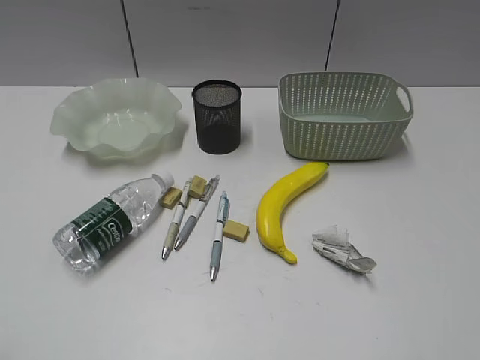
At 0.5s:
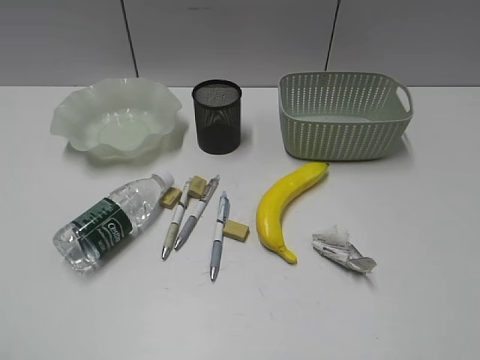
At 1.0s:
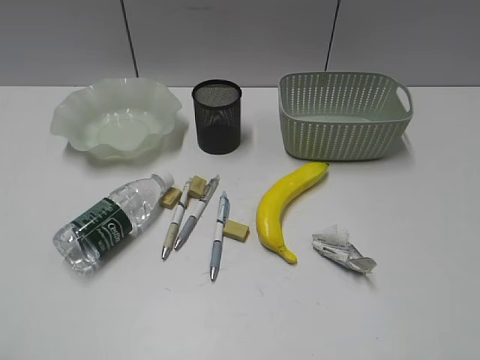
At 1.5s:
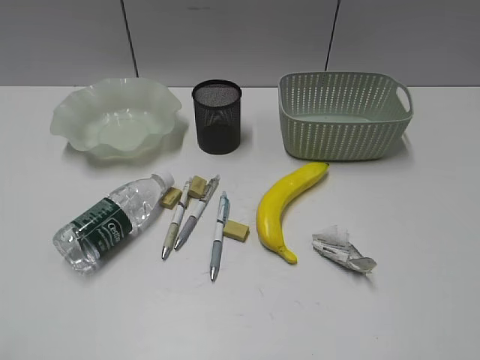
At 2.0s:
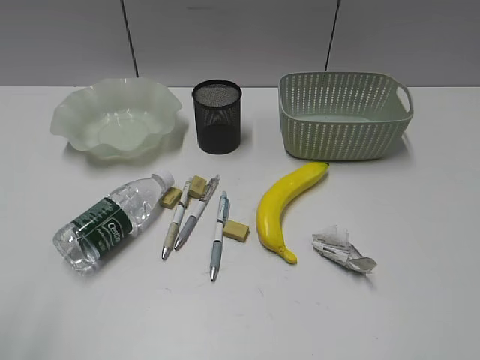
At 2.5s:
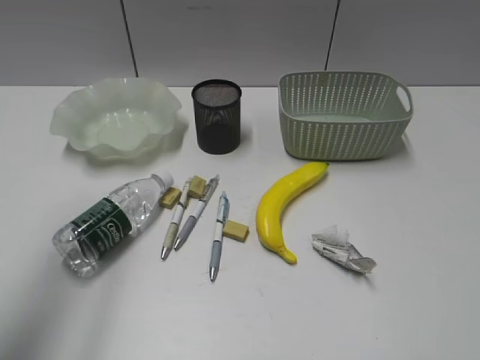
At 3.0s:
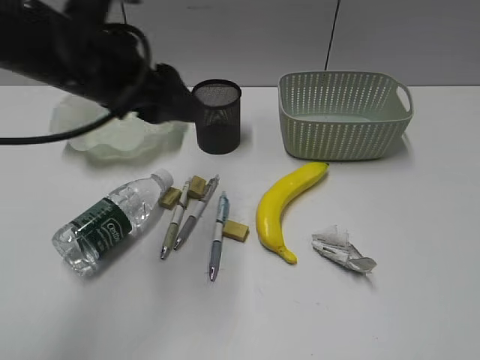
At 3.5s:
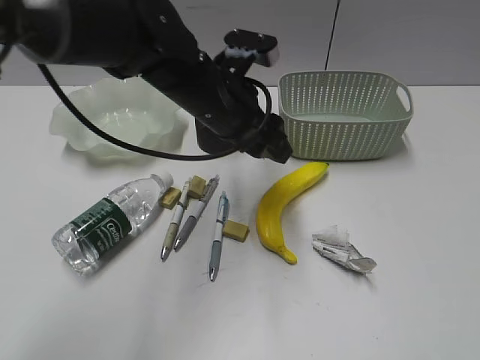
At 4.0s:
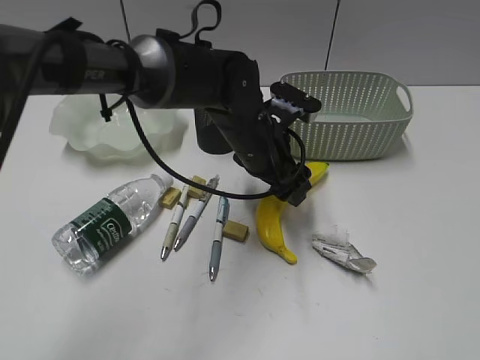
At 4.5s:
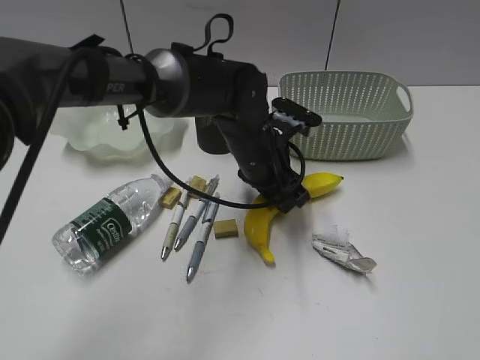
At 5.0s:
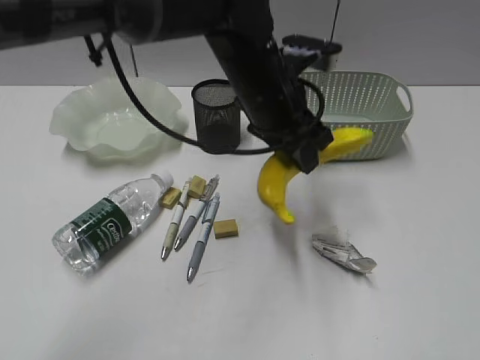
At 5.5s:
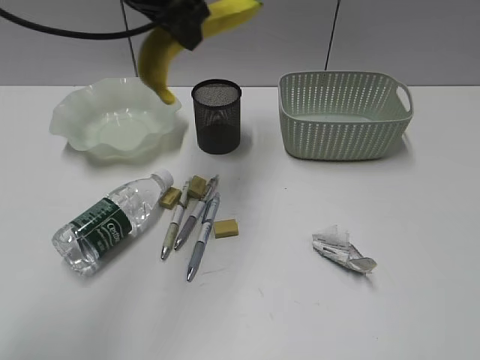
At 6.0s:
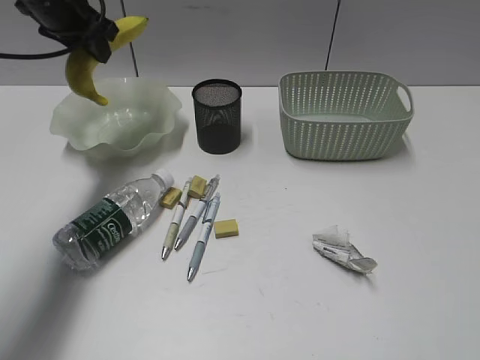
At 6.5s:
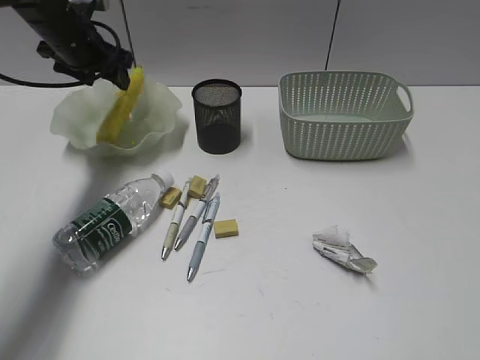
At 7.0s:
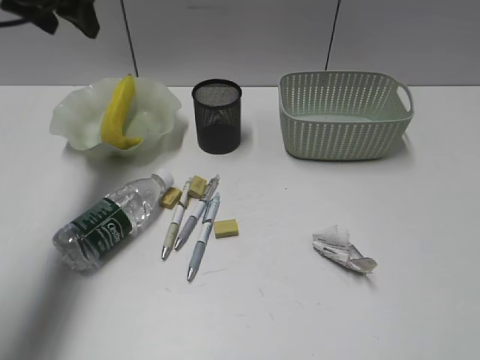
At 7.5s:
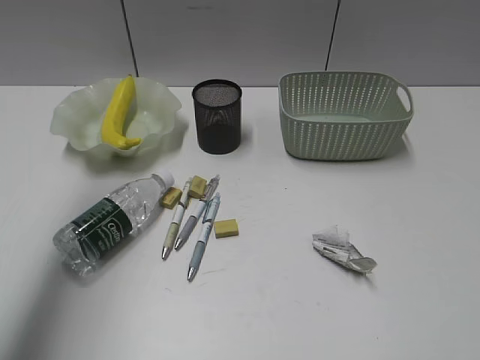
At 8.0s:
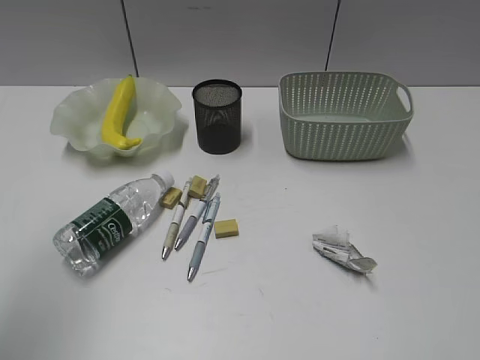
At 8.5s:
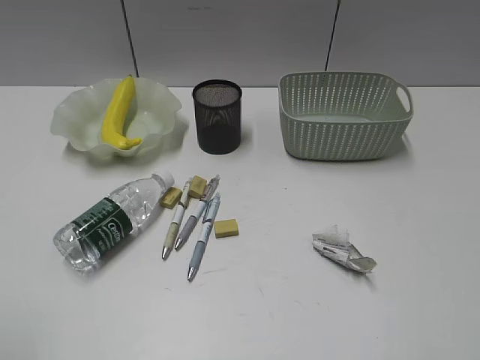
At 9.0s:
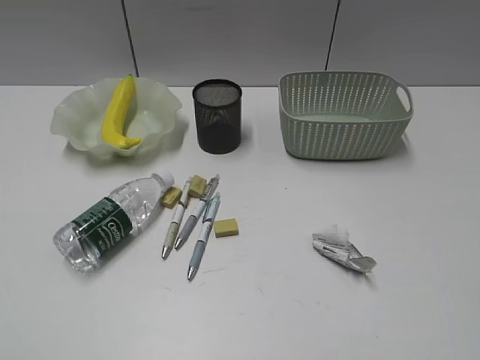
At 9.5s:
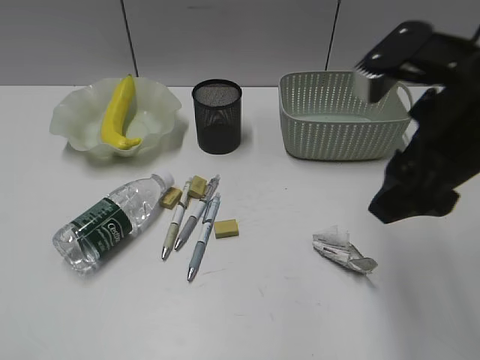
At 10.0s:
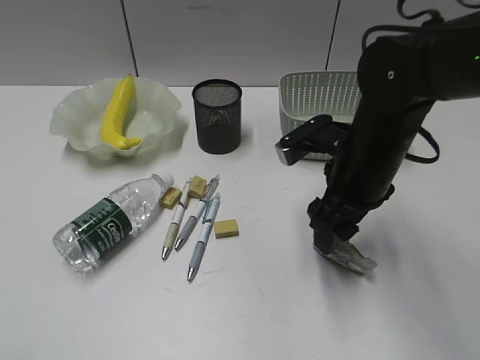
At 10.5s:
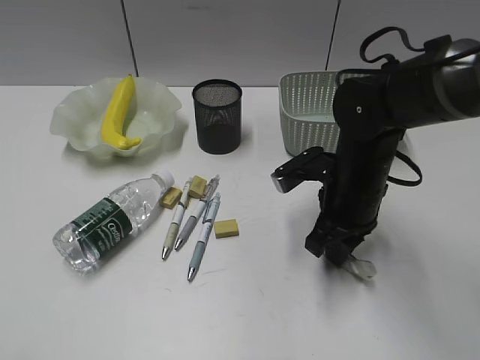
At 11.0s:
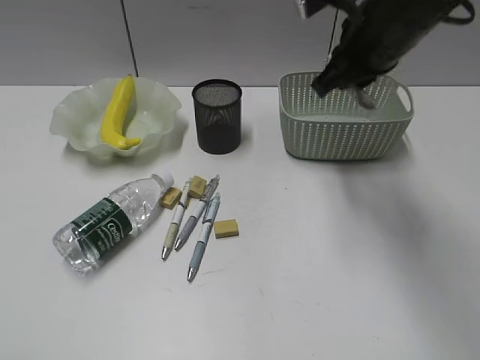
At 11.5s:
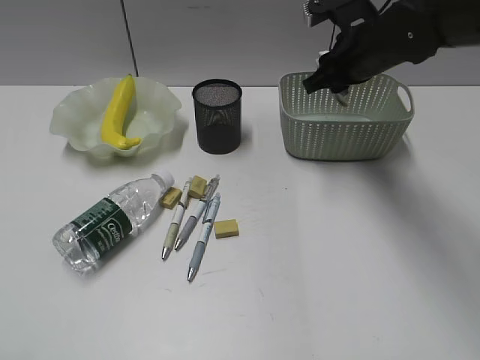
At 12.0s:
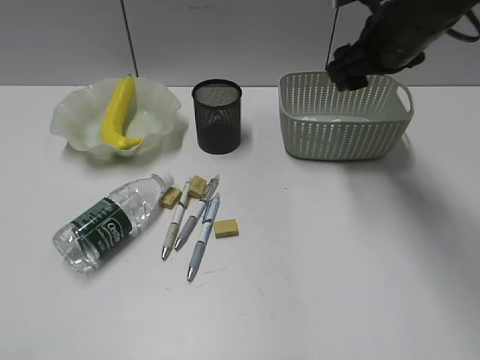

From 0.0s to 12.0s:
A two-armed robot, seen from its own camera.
Step, from 1.5s to 4.0s: Grasp the banana with left gripper.
Step, from 4.5s to 6.5s: Place the banana in the plate with left gripper.
Step, from 7.0s to 10.0s: Grasp the waste paper with right gripper.
Step, from 10.5s to 11.5s: Place the waste paper in the basket with right gripper.
From 2.0s to 4.0s: The left gripper shifts about 50 cm forward, to the right and downward, and opens.
From 4.0s to 6.0s: The left gripper moves to the left, upward and forward, roughly 30 cm, and closes.
From 6.0s to 8.0s: The left gripper is displaced backward by about 30 cm.
From 8.0s to 10.0s: The left gripper is displaced backward and downward by roughly 20 cm. The right gripper goes roughly 35 cm forward and to the left, and opens up.
From 10.0s to 12.0s: The right gripper goes up and down, about 15 cm each way, reversing 2 times, and closes and opens again.

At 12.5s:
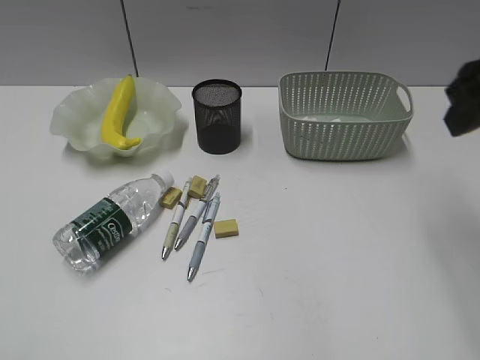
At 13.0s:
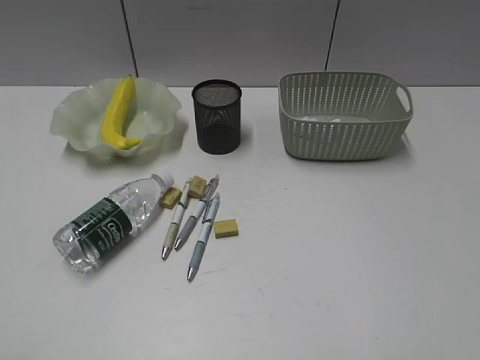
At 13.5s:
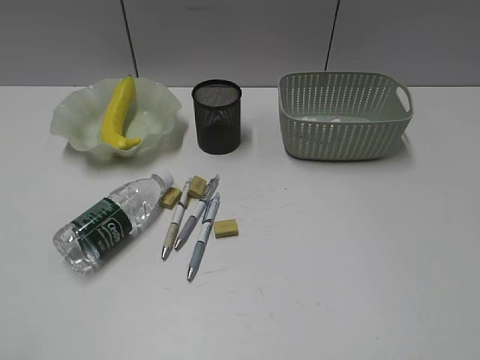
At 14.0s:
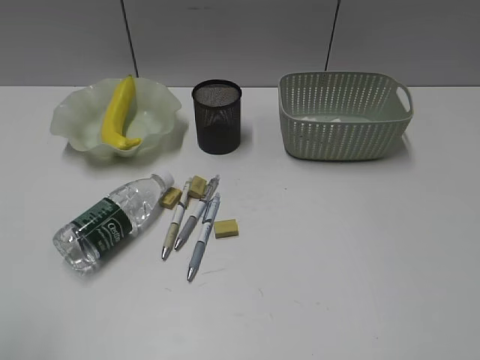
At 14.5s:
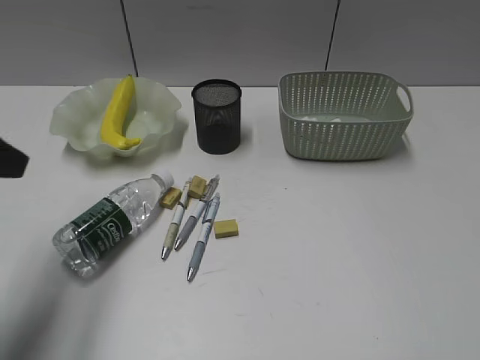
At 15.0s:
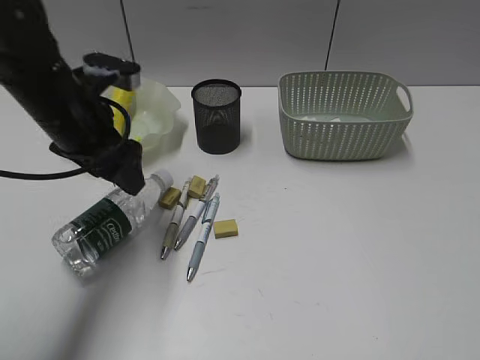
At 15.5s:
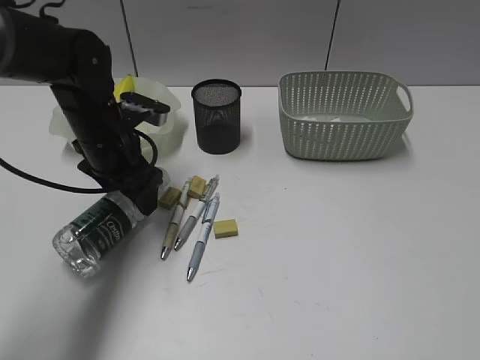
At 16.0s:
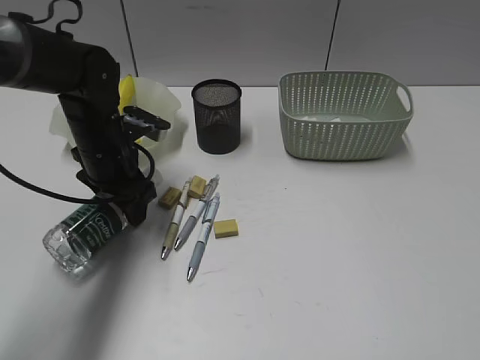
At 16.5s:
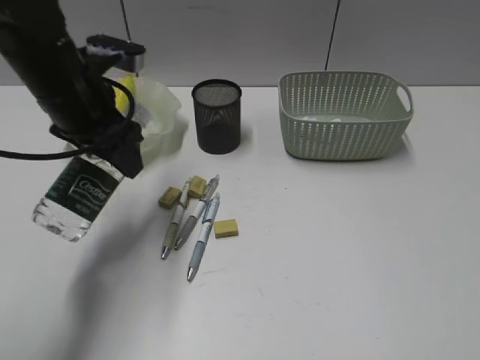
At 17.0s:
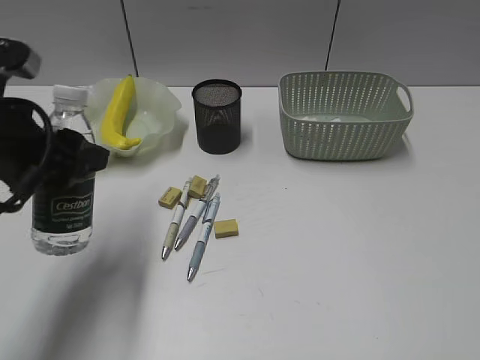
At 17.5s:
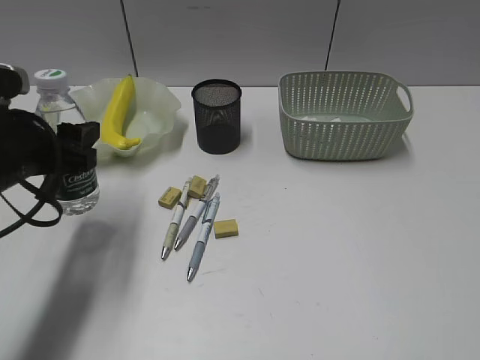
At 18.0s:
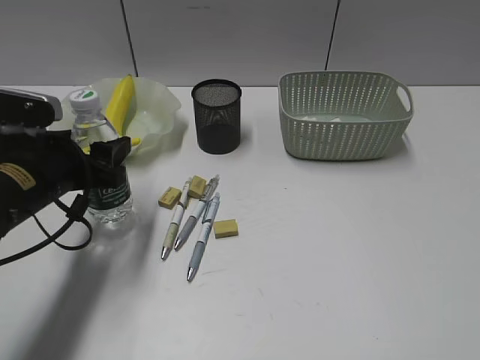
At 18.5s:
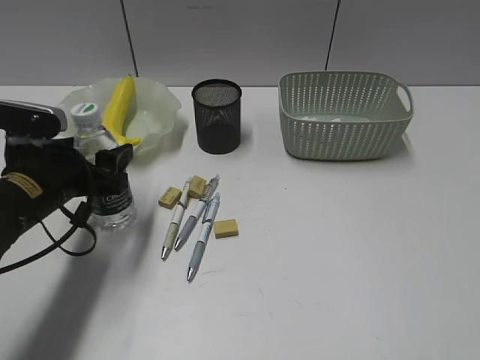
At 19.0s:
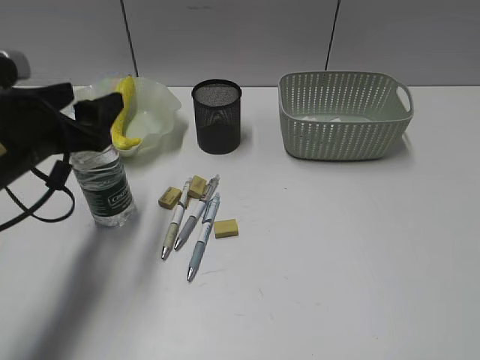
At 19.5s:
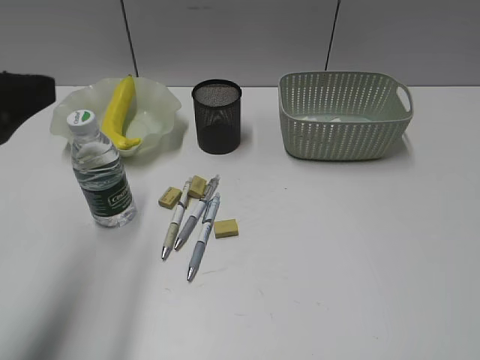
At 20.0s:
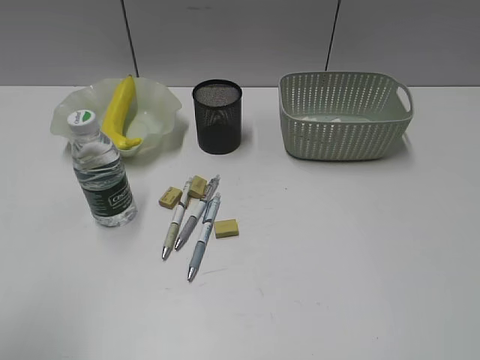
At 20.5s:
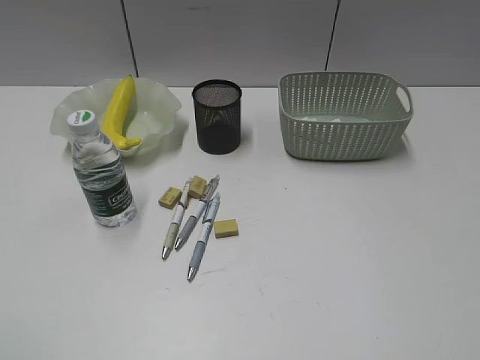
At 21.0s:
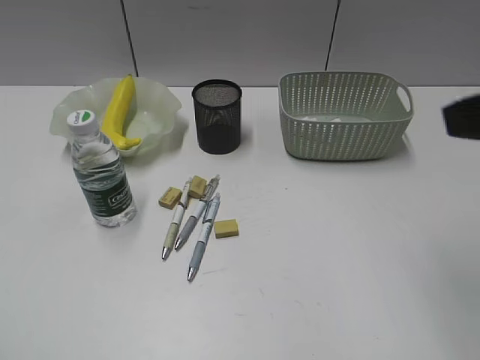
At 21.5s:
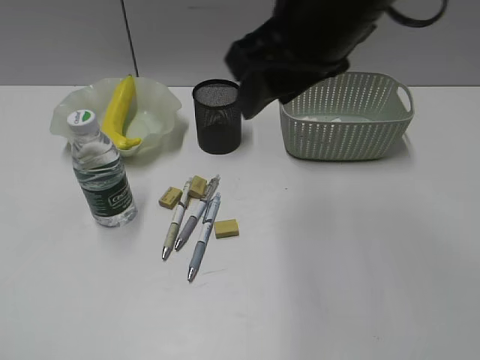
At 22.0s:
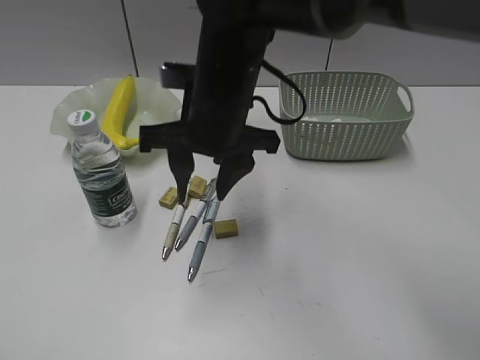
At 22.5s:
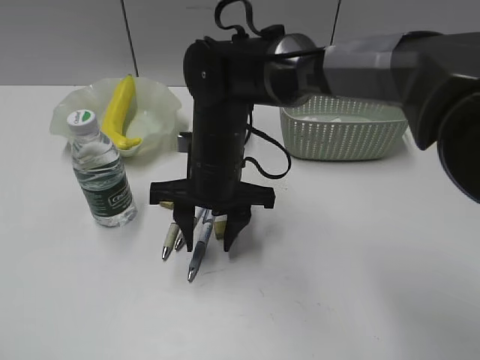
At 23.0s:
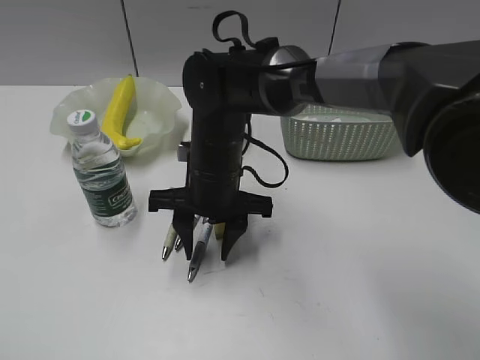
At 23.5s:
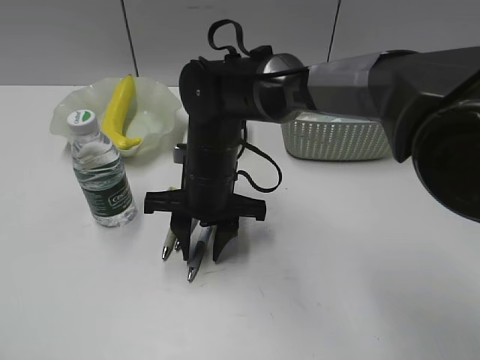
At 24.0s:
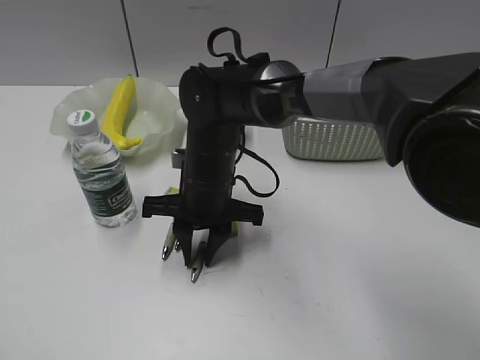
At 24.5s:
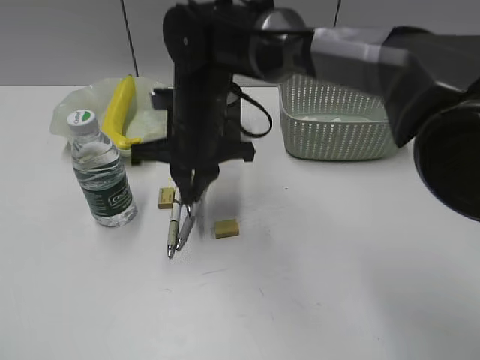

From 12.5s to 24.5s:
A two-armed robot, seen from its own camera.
Step, from 12.5s to 15.5s: Grasp the bottle with left gripper.
Step, from 16.0s to 19.0s: Stand the bottle with left gripper.
Step, from 19.5s to 24.0s: Grasp the blue pen with right gripper.
From 12.5s to 14.5s: The right gripper goes approximately 30 cm backward; the left gripper goes some 20 cm forward.
From 14.5s to 16.5s: The left gripper is displaced forward, to the right and downward by about 20 cm.
From 16.5s to 18.5s: The left gripper heads downward and backward, covering some 10 cm.
From 18.5s to 20.5s: The left gripper travels backward and upward by some 30 cm.
From 20.5s to 22.5s: The right gripper shifts about 50 cm to the left, forward and downward.
From 22.5s to 24.5s: The right gripper closes up.

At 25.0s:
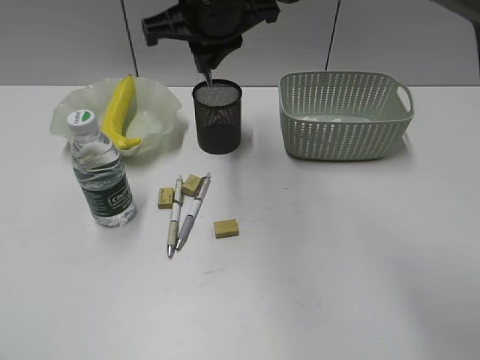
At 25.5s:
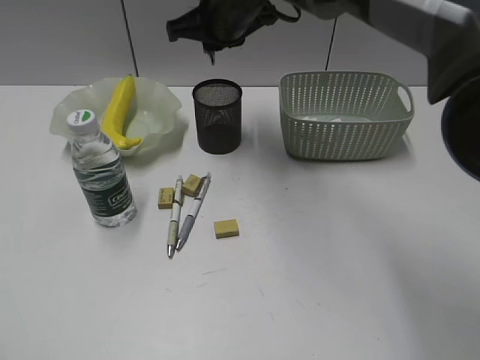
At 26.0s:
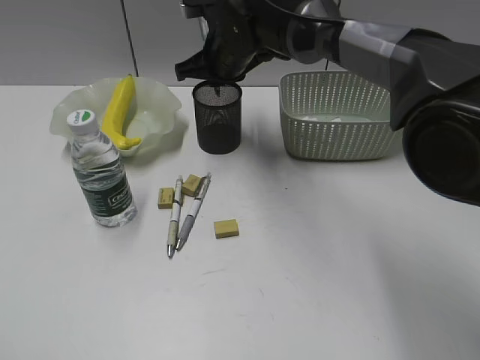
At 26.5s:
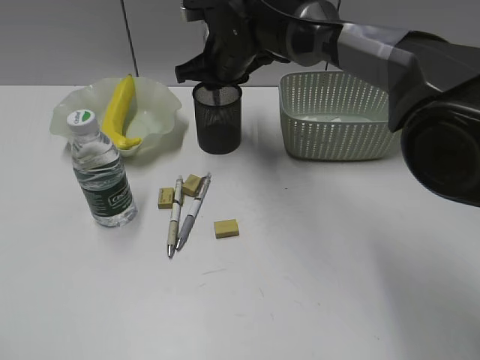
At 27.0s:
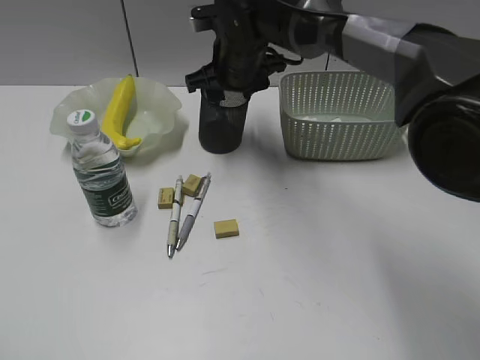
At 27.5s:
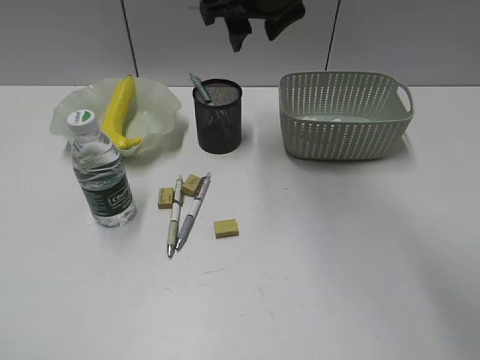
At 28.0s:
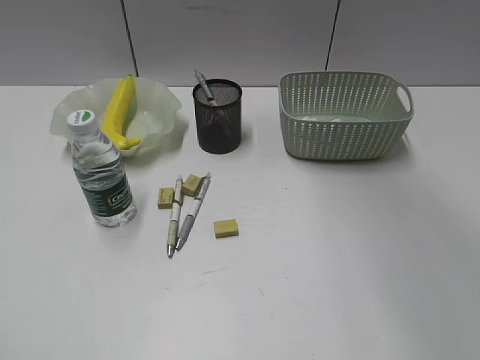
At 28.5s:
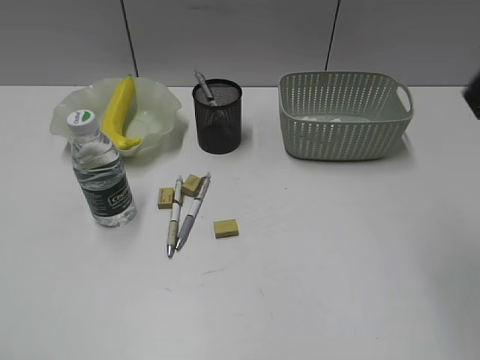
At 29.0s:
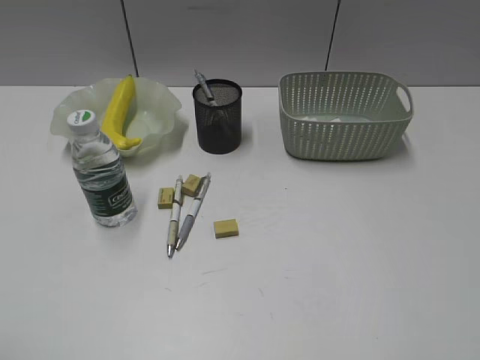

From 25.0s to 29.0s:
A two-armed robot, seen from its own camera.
Step, from 25.0s to 27.0s: Place the blue pen in pen holder with right gripper.
From 25.0s to 27.0s: The right gripper shifts about 15 cm downward and forward, and opens up.
From 27.0s to 29.0s: The right gripper is displaced backward and to the right by approximately 50 cm.
